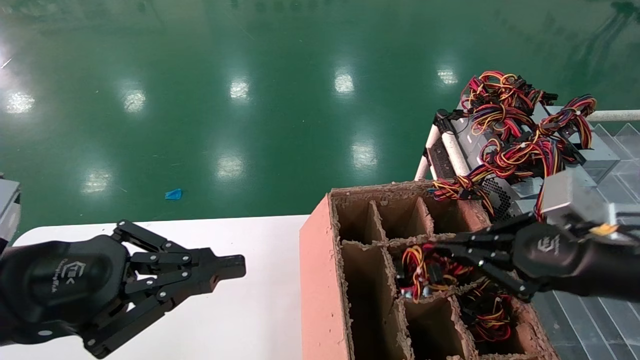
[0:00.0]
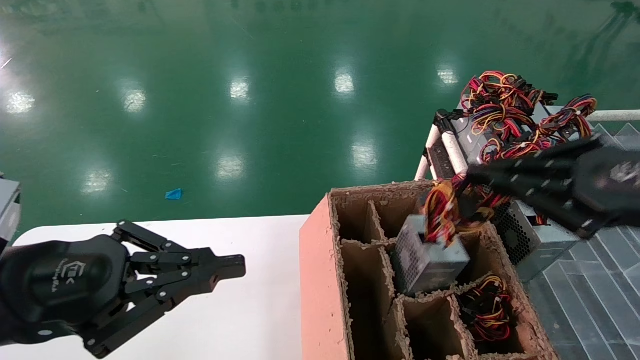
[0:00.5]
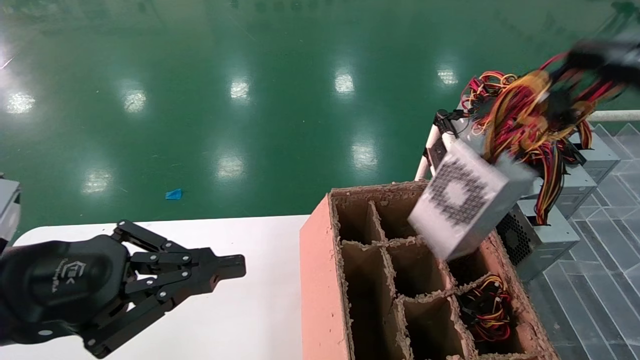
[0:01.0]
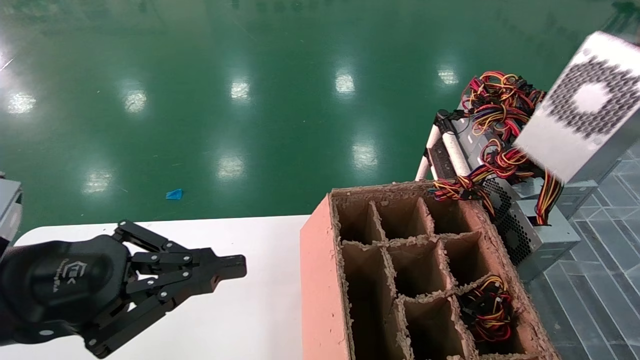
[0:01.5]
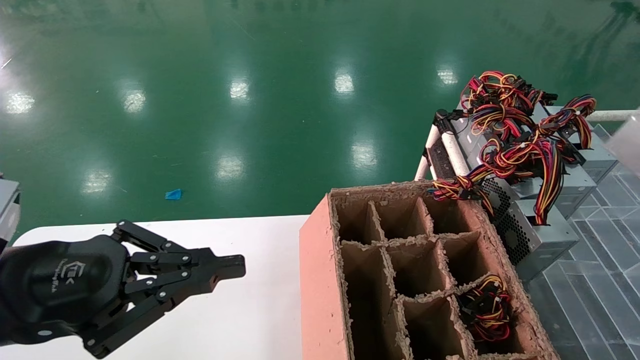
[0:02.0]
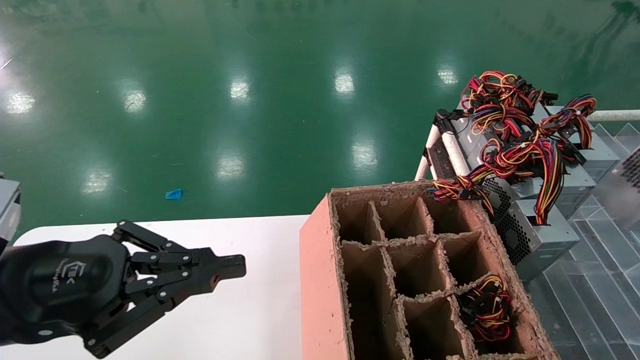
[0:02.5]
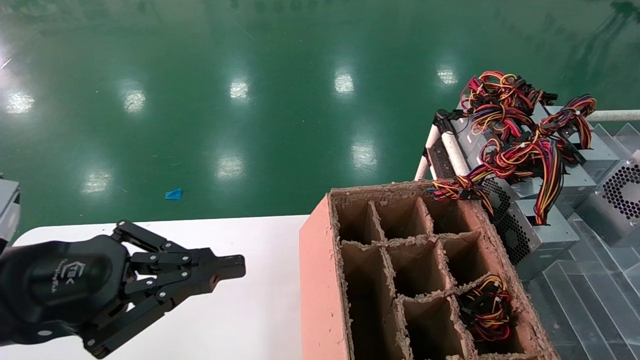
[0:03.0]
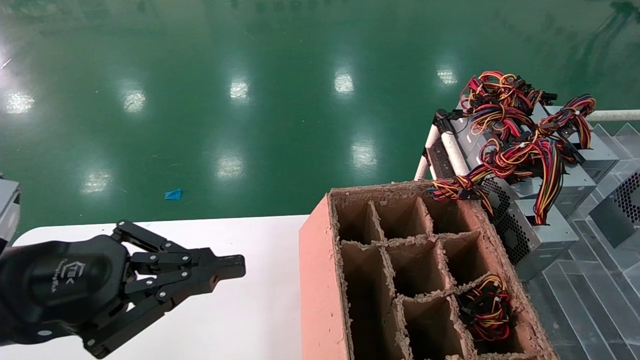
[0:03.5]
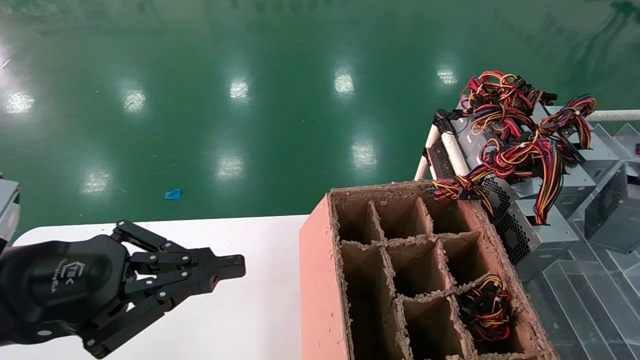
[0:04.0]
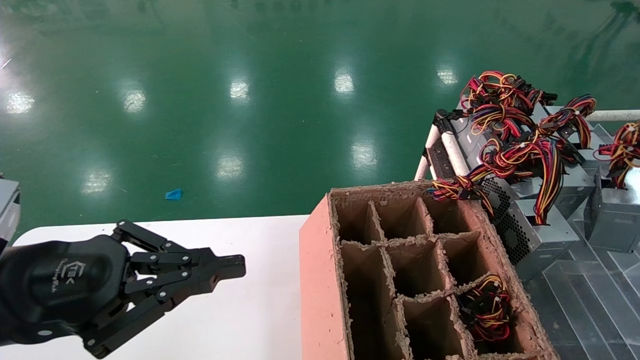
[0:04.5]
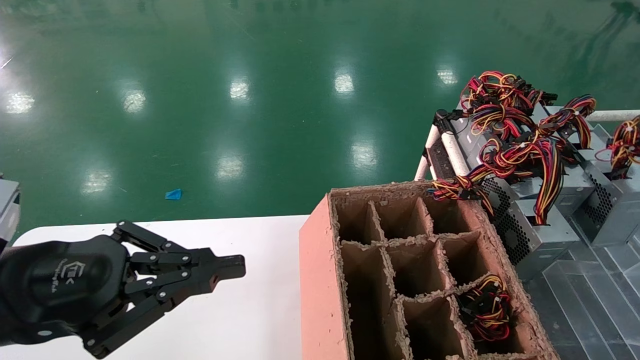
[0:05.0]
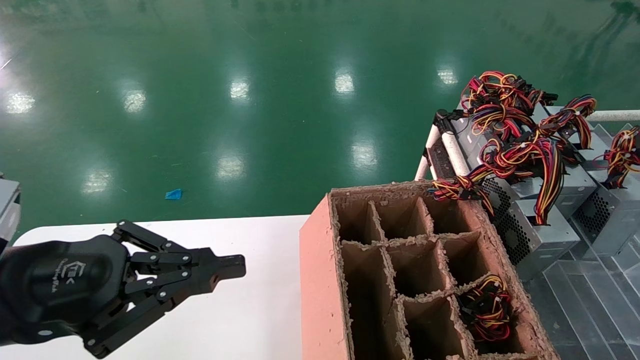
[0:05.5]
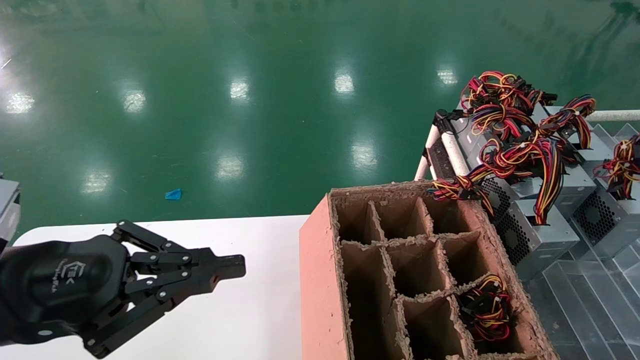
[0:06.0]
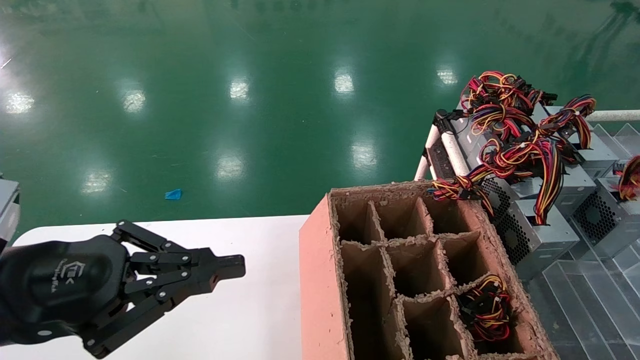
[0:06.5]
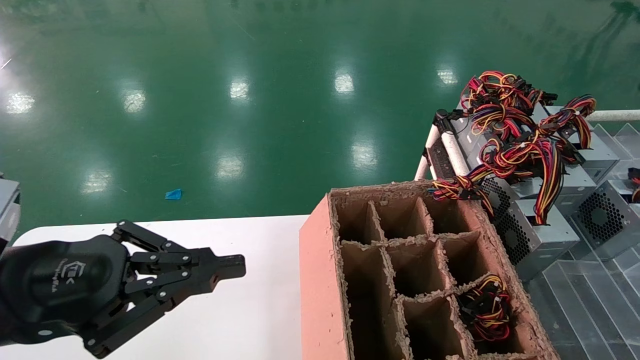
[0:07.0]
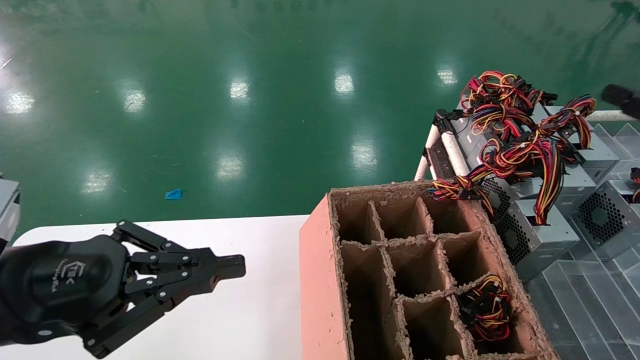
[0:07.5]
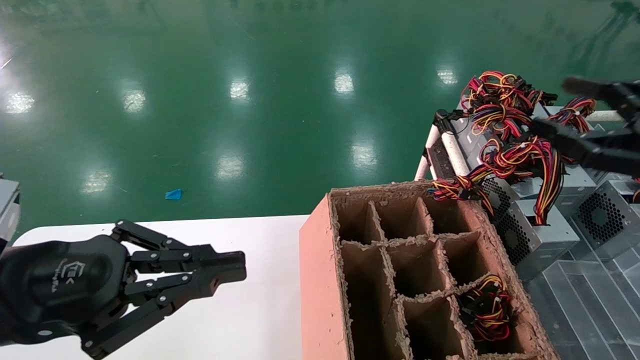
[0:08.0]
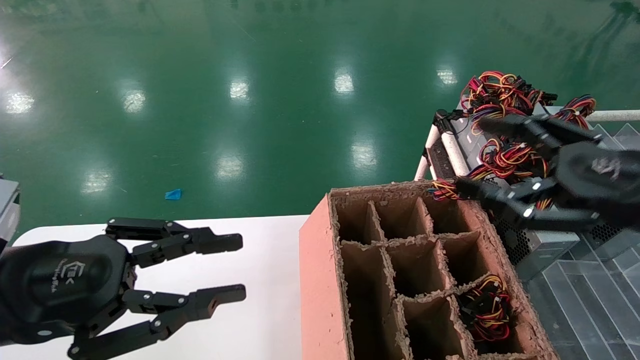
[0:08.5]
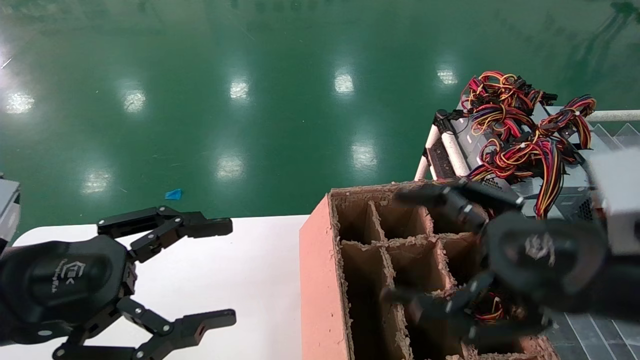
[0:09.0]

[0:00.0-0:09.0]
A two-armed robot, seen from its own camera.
Step, 0:00.0 to 0:08.0: Place the main unit power supply in the designated area.
0:00.0 to 0:02.0: The right gripper travels to the right, upward and backward by approximately 30 cm.
0:02.0 to 0:04.5: The right gripper shifts about 15 cm forward and downward.
0:04.5 to 0:07.0: The right gripper opens up.
0:07.0 to 0:09.0: The left gripper opens its fingers; the right gripper is displaced to the left by approximately 25 cm, and opens.
